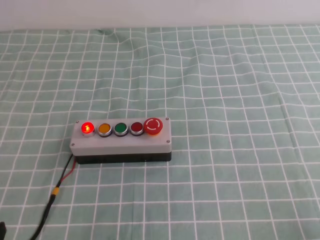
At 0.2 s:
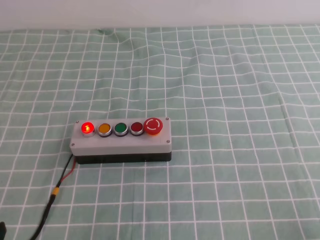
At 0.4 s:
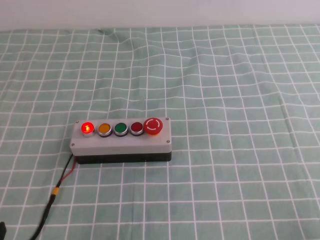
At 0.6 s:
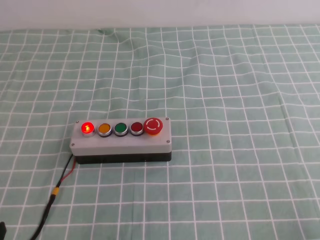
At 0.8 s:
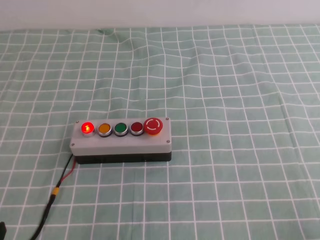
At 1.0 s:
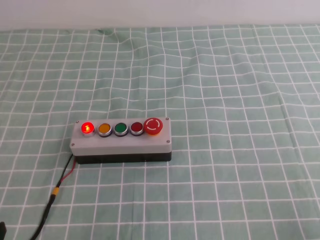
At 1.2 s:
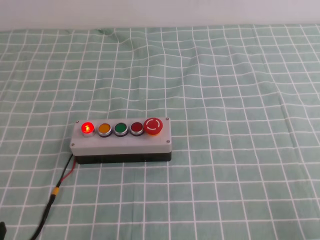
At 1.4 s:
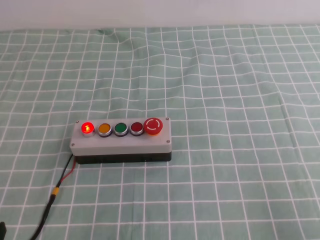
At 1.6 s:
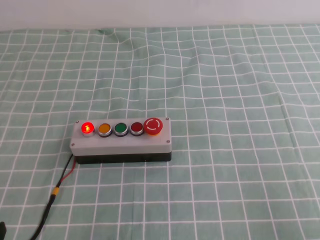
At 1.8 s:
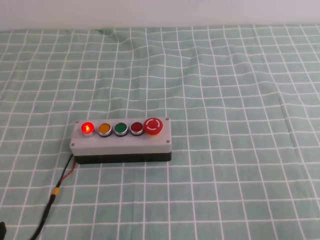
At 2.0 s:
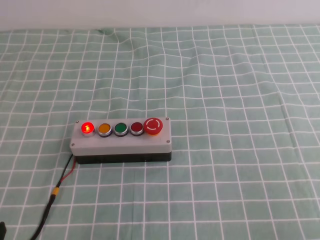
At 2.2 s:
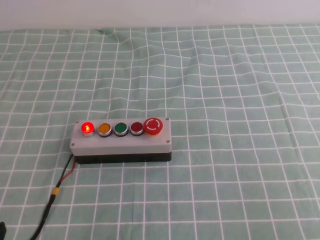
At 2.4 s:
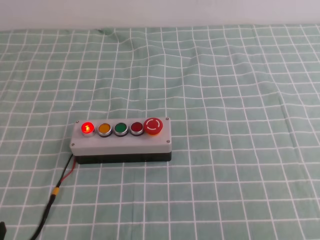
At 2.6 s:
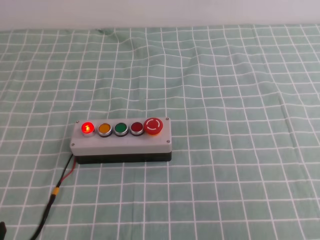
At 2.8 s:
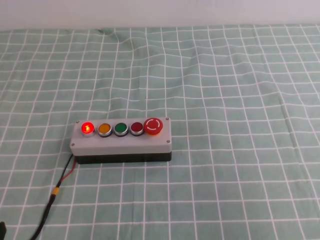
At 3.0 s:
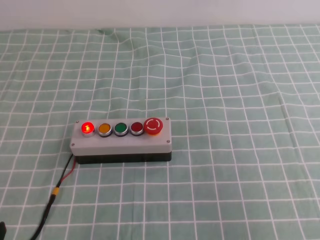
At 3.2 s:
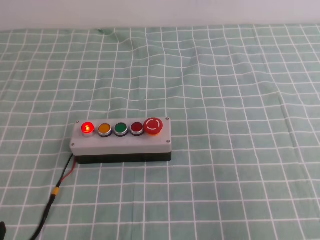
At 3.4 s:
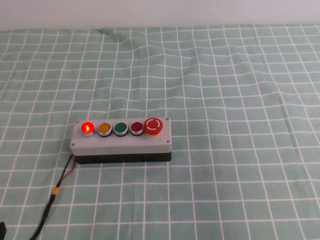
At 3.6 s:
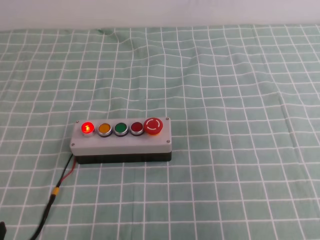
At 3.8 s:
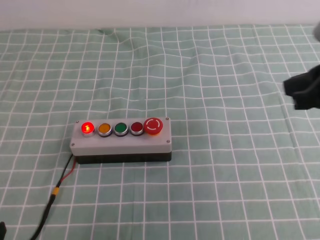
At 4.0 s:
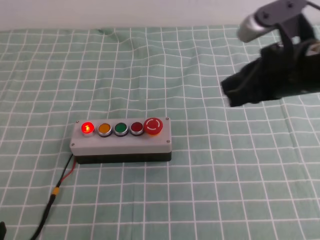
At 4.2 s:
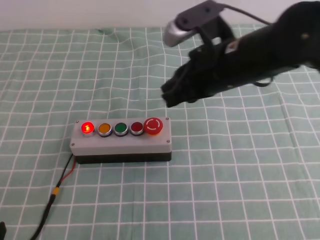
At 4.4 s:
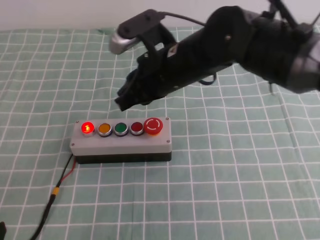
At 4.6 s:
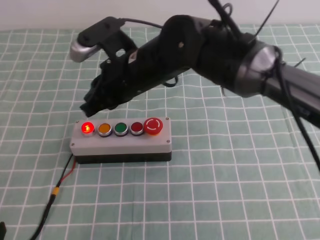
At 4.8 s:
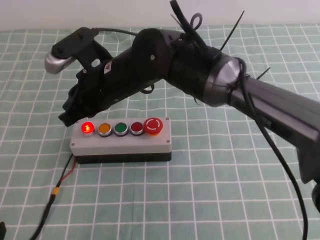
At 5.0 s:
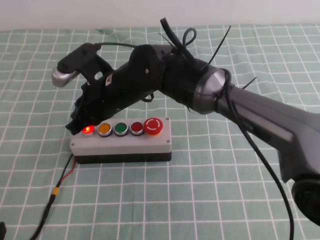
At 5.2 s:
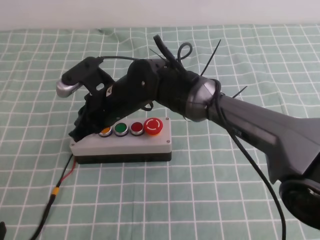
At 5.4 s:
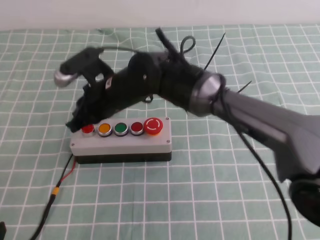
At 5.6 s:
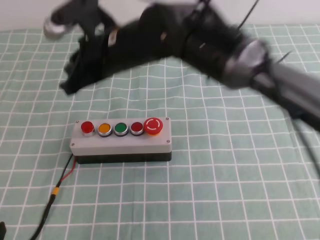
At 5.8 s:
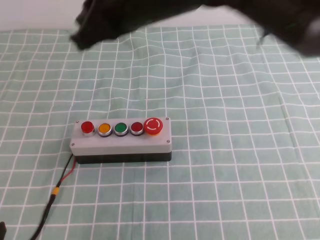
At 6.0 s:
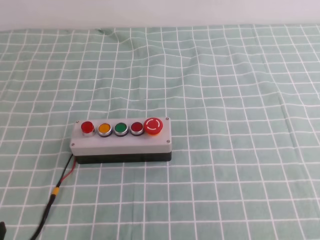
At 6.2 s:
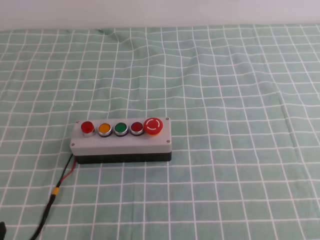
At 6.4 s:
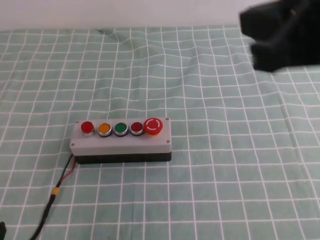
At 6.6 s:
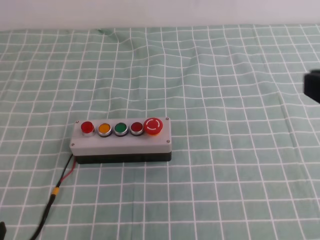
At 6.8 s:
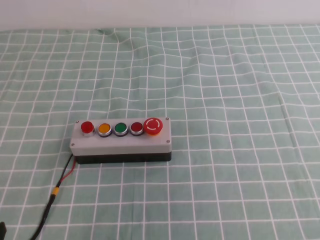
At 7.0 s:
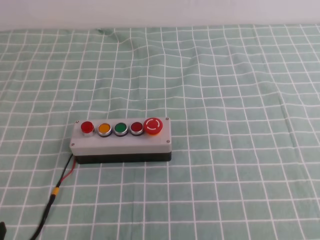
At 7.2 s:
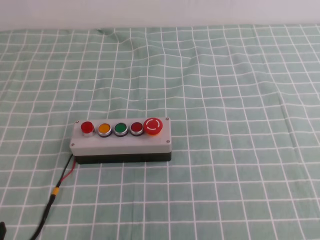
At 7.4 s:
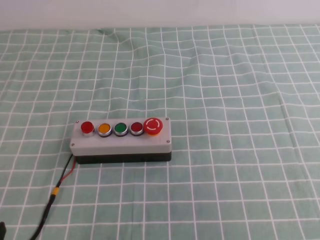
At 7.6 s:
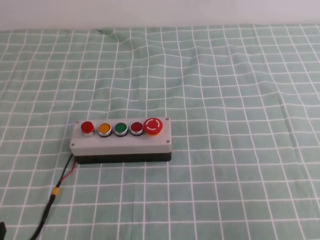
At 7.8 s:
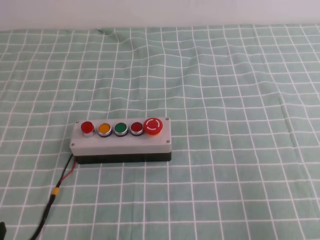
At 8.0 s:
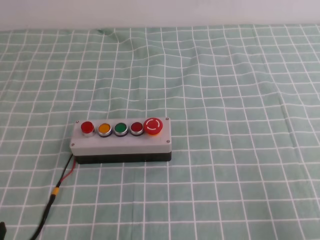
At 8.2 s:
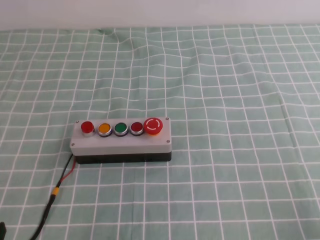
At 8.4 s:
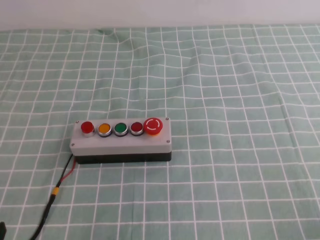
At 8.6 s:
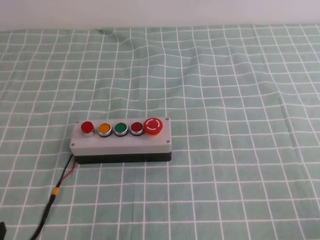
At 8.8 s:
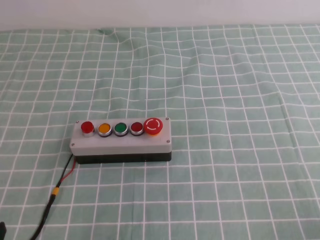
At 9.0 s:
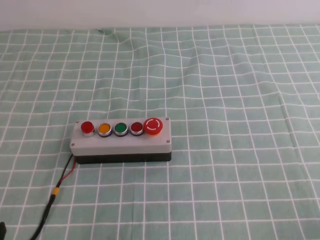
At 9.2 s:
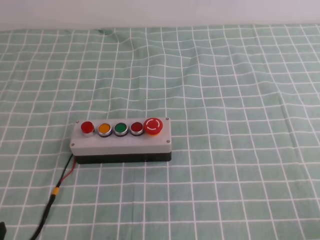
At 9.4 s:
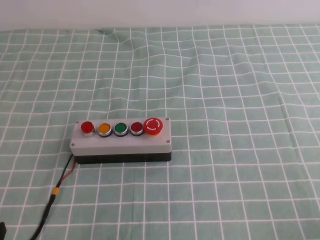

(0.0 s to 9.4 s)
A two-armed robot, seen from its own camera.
Task of the whole recording: press the button switch on the cyan tablecloth with the right gripper to turn off the button.
Step, 0.0 s - 9.4 s: Press the button to turn off.
1.6 s - 3.2 s: The right gripper travels upward and forward by some 15 cm.
3.2 s - 4.8 s: The right gripper shifts about 40 cm to the left and forward.
4.8 s - 6.2 s: The right gripper shifts approximately 30 cm upward, to the right and backward.
7.8 s - 9.4 s: The right gripper moves downward, some 15 cm.

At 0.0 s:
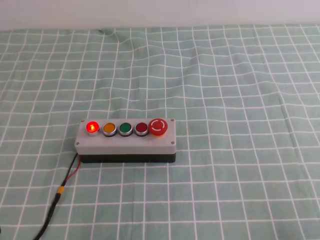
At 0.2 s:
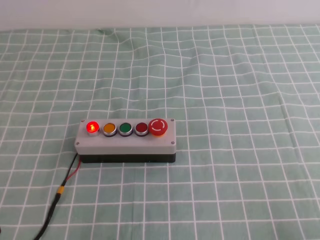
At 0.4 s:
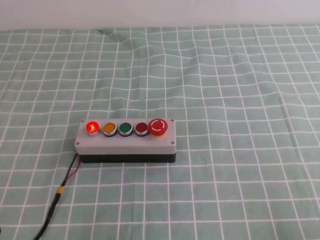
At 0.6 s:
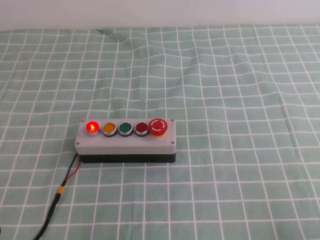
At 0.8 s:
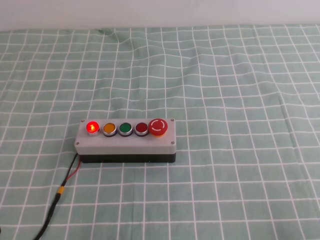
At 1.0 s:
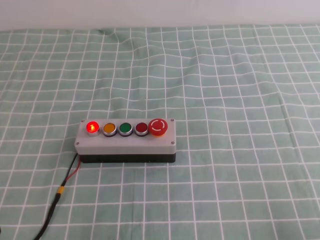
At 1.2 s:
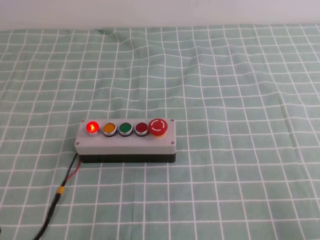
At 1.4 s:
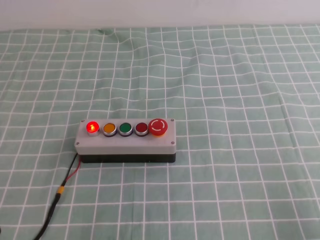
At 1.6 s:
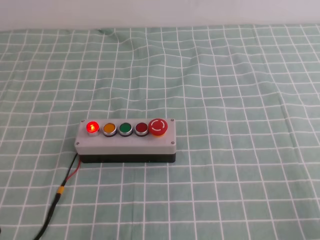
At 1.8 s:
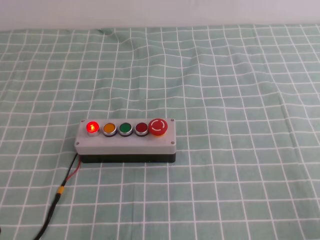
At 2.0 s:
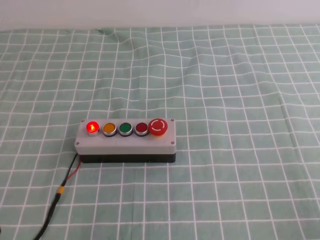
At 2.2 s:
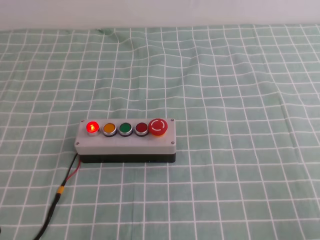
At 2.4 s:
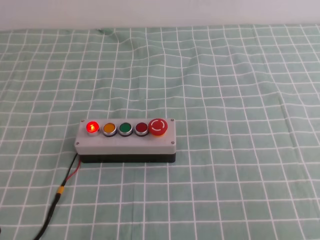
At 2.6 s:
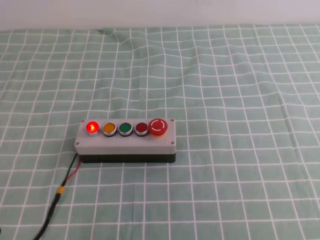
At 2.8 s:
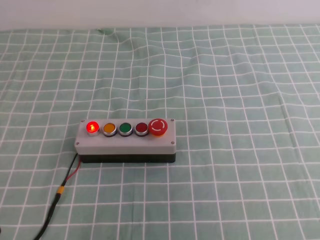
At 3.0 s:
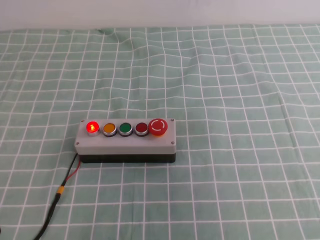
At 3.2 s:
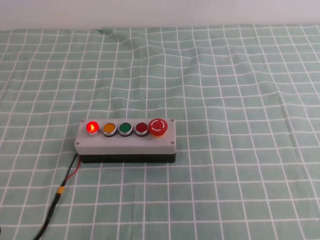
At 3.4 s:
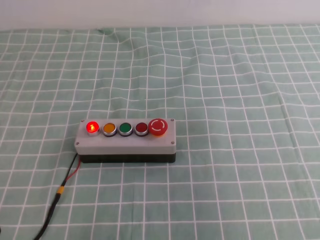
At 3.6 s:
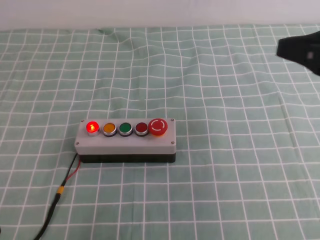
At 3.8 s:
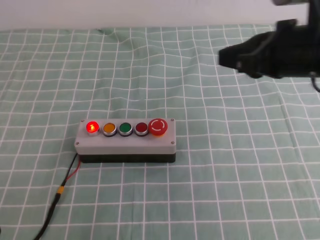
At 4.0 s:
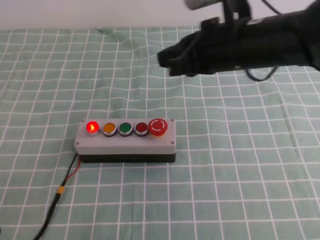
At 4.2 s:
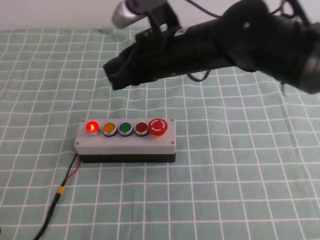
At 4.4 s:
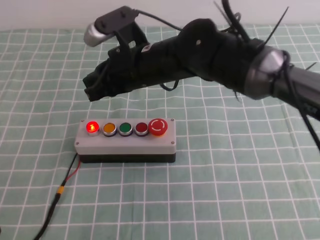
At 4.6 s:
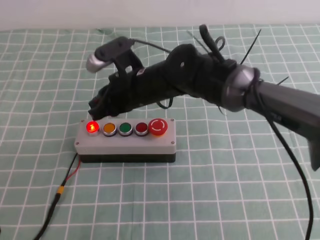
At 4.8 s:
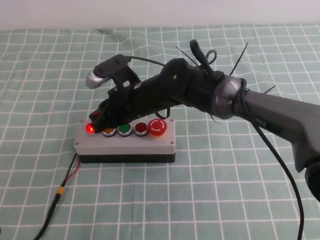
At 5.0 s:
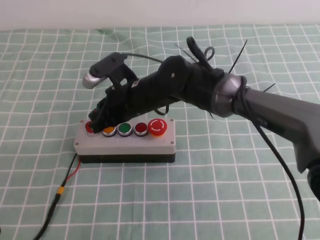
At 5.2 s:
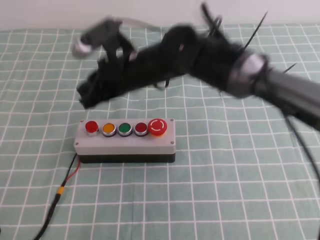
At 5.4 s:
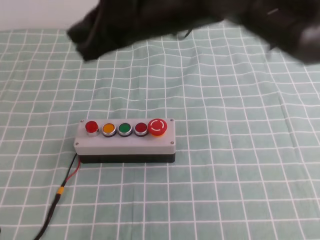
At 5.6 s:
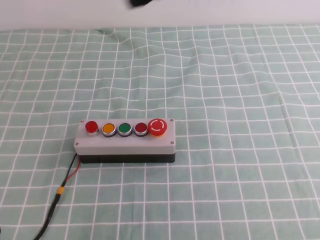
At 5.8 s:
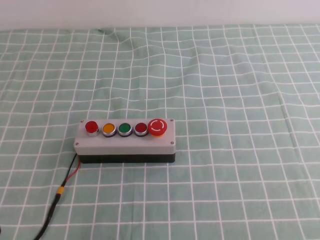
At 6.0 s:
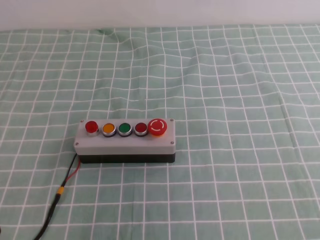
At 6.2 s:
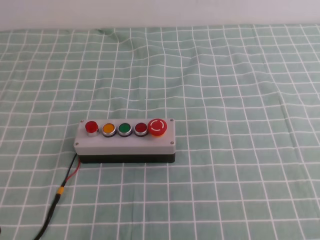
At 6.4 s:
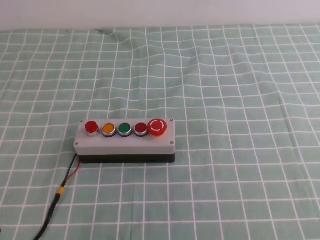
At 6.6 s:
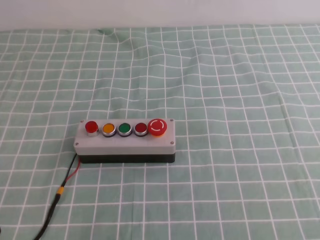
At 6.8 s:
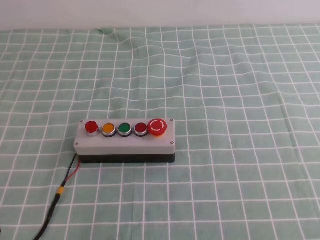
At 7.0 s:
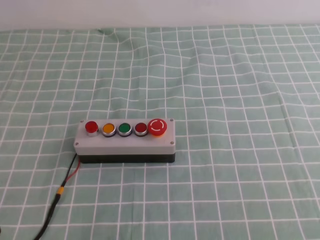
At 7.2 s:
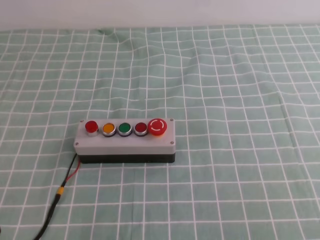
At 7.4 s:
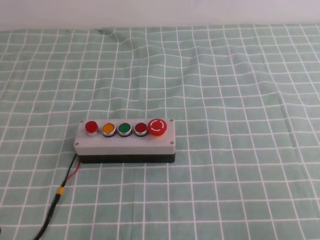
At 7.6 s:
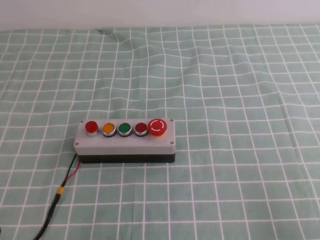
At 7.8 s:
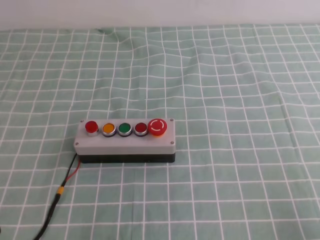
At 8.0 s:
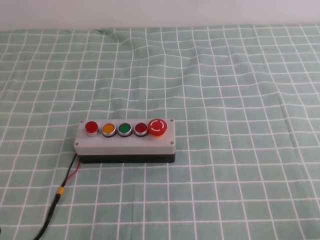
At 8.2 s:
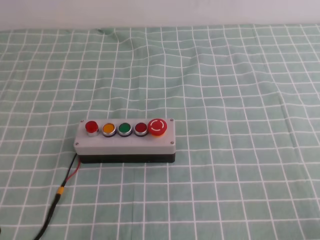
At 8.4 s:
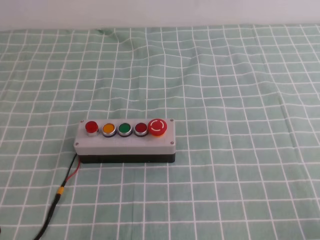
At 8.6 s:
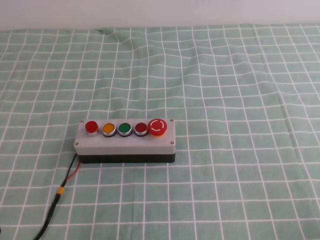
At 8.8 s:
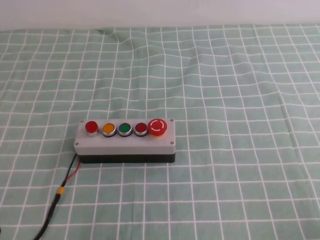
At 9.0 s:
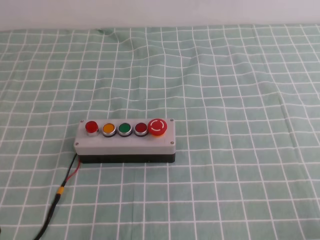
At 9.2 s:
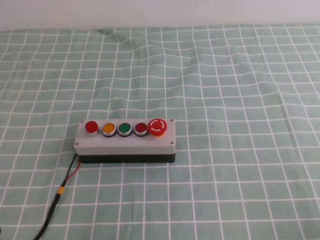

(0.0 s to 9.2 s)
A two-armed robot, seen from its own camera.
Task of the whole recording: press the button switch on the cyan tablecloth with the right gripper to turn off the button.
Step, 0.0 s - 9.2 s: Press the button to turn off.
1.6 s - 3.0 s: The right gripper shifts roughly 25 cm upward.
3.0 s - 4.6 s: The right gripper goes some 50 cm to the left, forward and downward.
4.6 s - 6.2 s: The right gripper moves to the right, backward and upward, roughly 50 cm.
